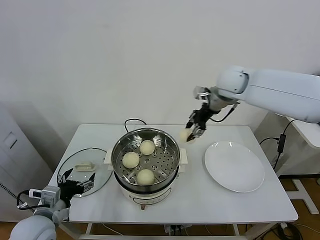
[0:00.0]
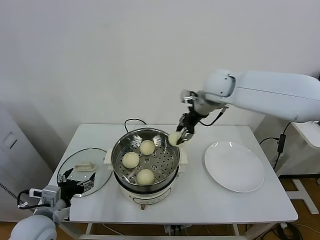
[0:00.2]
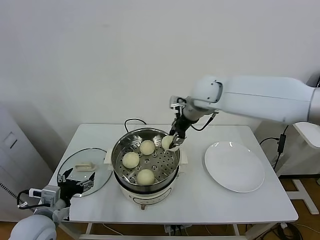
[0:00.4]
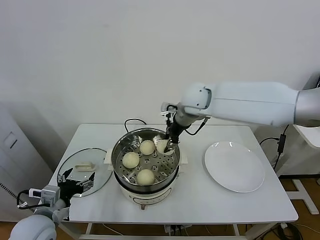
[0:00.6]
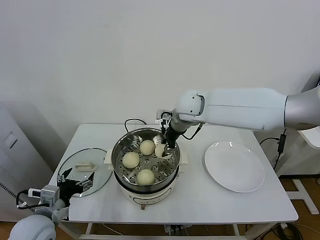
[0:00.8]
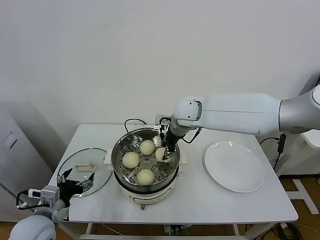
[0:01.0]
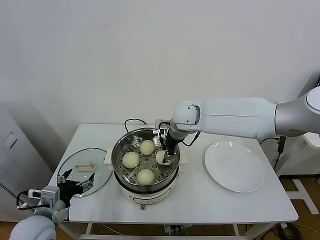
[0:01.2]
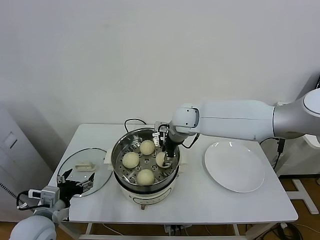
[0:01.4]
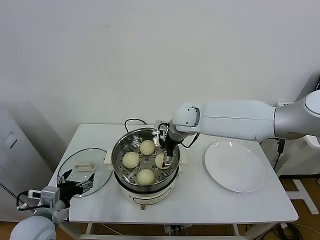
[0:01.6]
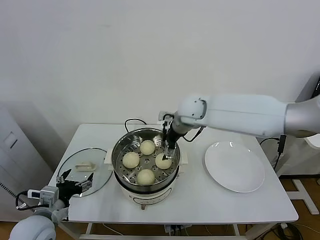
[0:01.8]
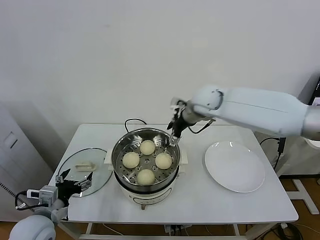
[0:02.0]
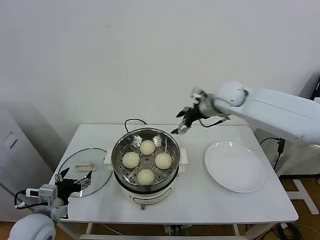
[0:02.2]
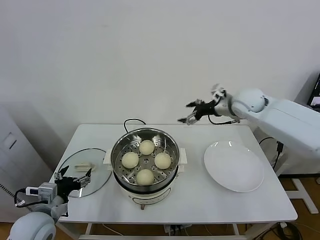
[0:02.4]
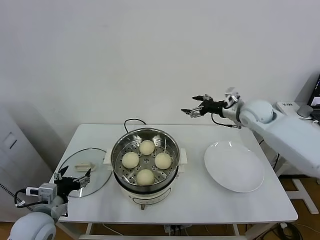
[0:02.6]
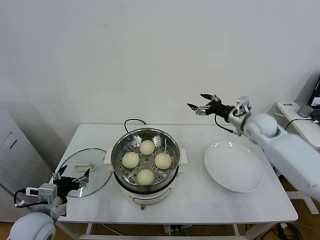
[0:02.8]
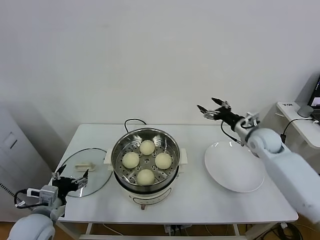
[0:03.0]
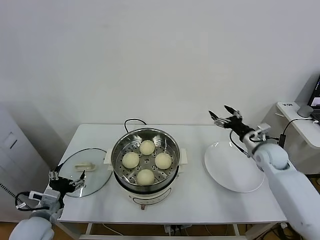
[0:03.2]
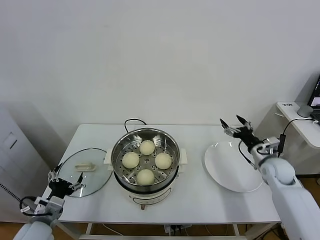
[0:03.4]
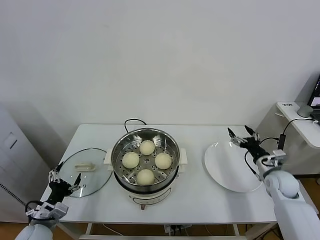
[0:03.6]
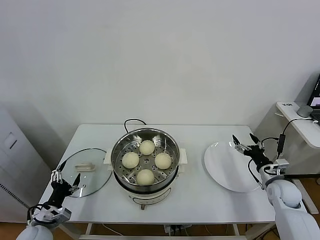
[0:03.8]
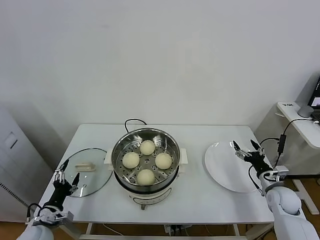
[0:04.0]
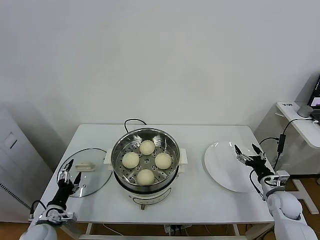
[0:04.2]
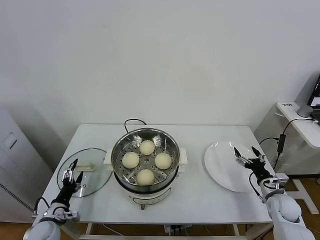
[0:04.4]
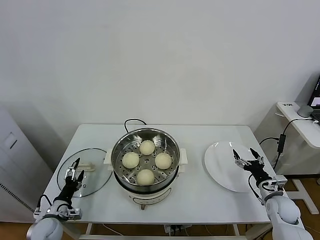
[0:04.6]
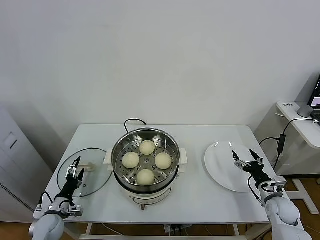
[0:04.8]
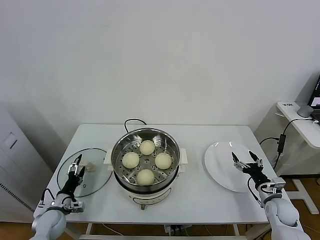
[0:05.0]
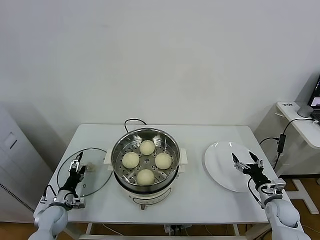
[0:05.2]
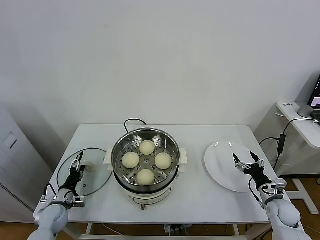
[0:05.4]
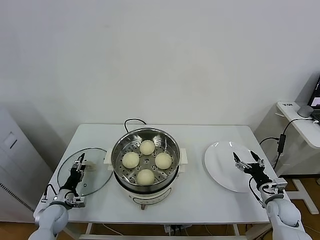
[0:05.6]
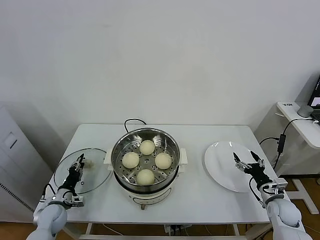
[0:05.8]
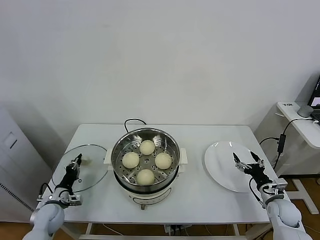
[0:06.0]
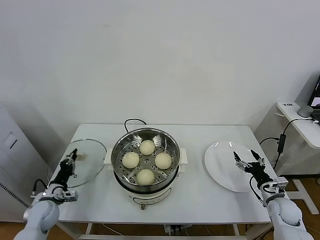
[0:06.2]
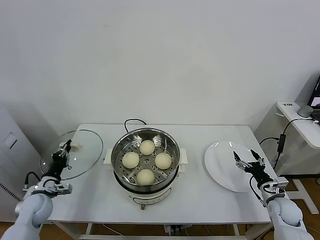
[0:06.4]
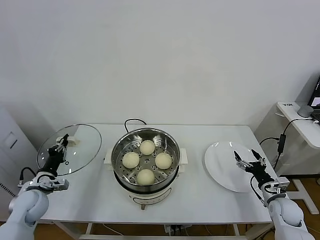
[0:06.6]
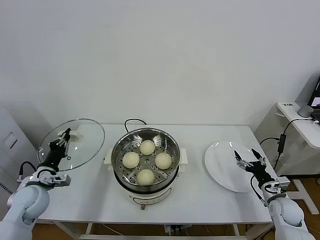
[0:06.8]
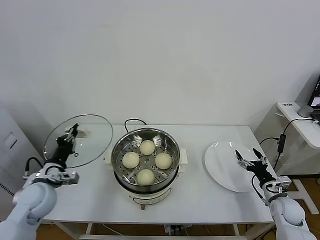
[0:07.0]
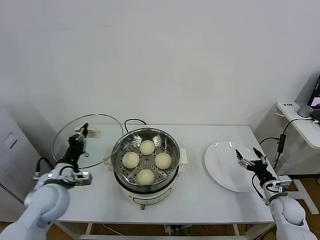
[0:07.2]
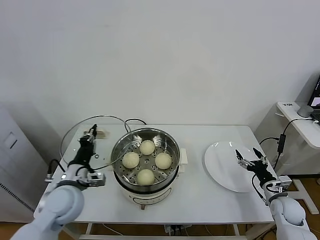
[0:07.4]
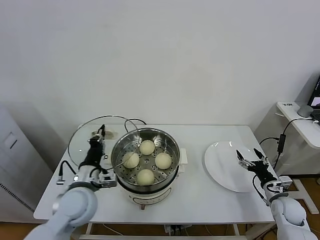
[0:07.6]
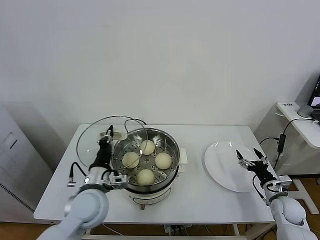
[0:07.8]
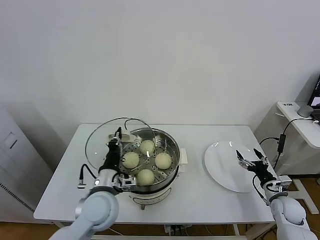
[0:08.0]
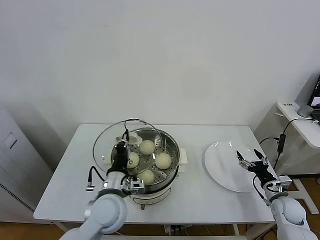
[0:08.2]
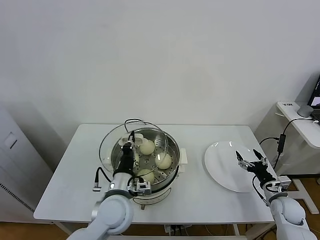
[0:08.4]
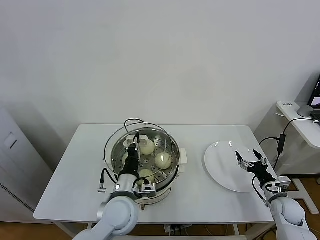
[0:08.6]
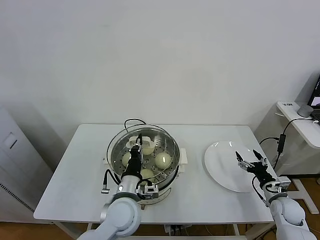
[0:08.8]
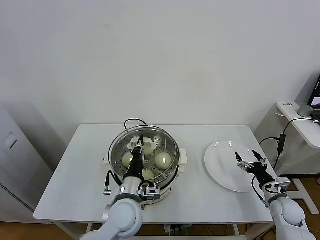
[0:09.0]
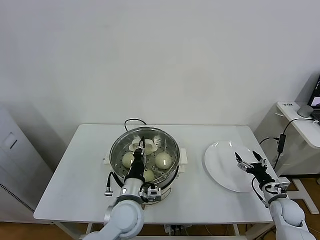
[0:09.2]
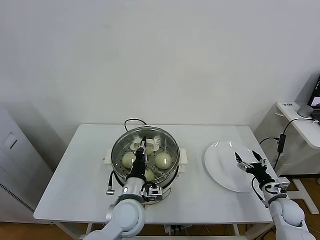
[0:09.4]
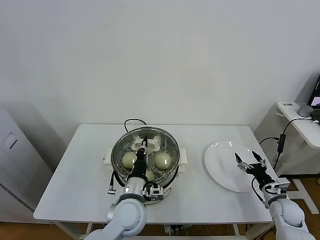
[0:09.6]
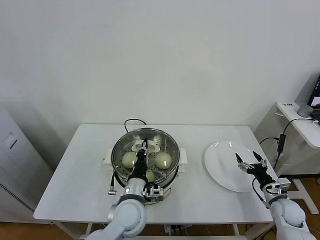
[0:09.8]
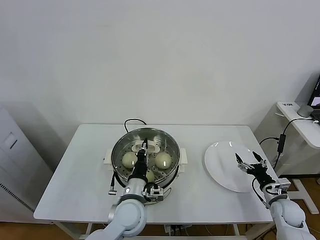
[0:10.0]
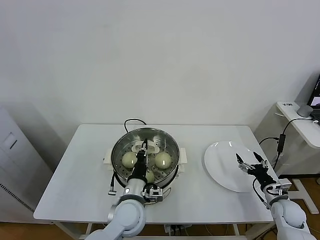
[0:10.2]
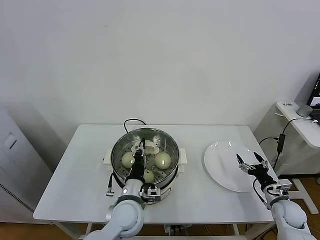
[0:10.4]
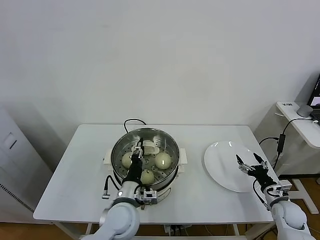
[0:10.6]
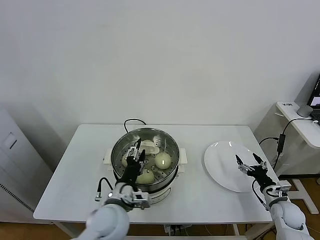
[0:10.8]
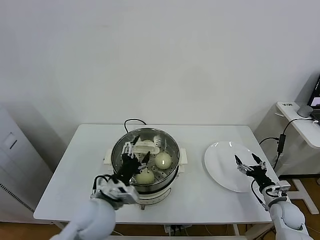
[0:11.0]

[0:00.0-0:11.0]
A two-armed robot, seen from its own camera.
Task of the whole recording: take steamed baozi put them in steamer.
Step, 0:00.0 to 0:01.8: Place the baozi on the steamer with right gripper.
Step, 0:02.0 to 0:06.0: Grasp the pot lid with left gripper.
0:00.0 to 0:01.6: The right gripper goes about 15 cm to the left and downward, and opens its fingers.
0:01.6 to 0:03.2: The right gripper shifts approximately 35 cm to the right and downward.
0:03.2 to 0:04.8: The left gripper is displaced downward by about 15 cm, while the right gripper goes approximately 20 cm downward and backward.
0:04.8 to 0:06.2: The left gripper closes up.
0:06.2 to 0:07.8: The left gripper heads to the right and upward, covering approximately 25 cm.
0:07.8 to 0:09.4: The left gripper travels to the right by roughly 10 cm.
0:09.4 to 0:11.0: The left gripper moves to the left, roughly 5 cm, and opens its fingers.

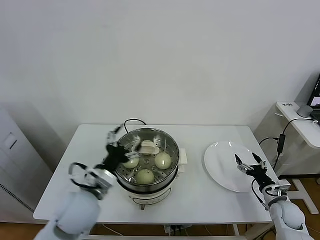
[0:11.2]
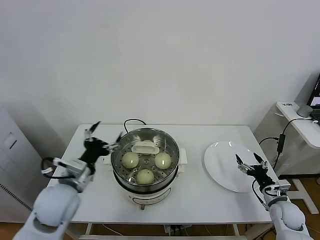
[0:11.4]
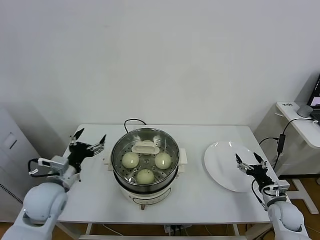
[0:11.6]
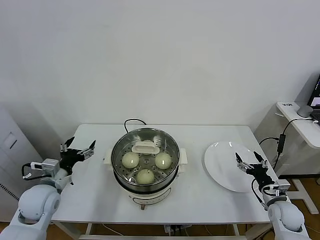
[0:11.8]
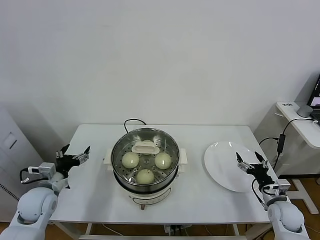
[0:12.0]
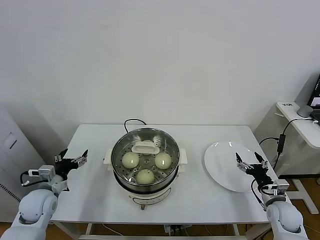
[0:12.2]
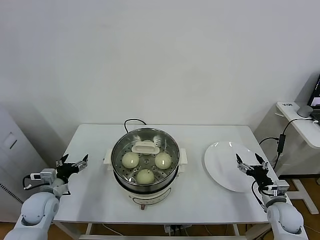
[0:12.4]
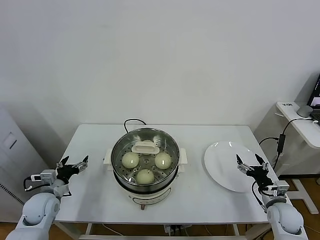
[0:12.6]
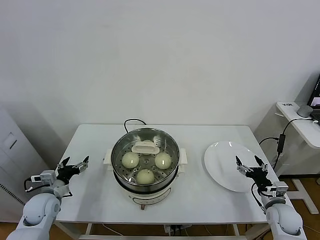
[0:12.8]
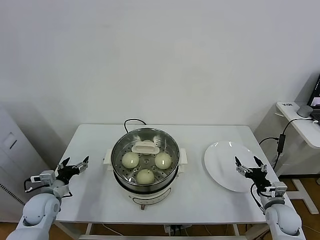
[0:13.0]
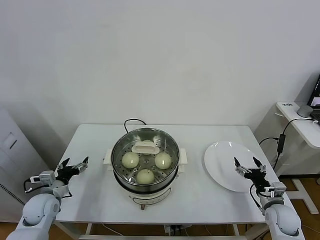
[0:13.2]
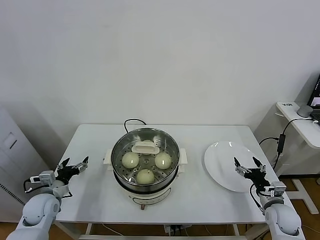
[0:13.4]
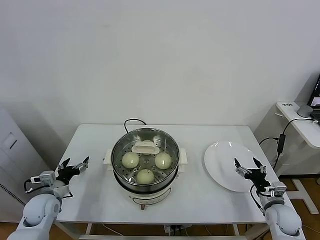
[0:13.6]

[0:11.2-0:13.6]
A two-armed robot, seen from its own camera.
Task of the whole recording: take steamed baozi put them in steamer.
0:11.2 to 0:12.4: The left gripper is displaced to the left and downward by approximately 25 cm.
0:12.4 to 0:13.6: The grippers make only small movements.
